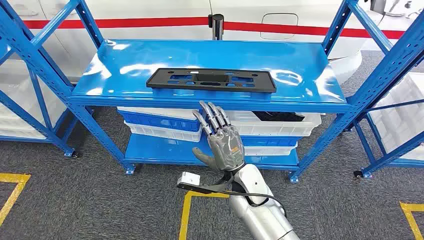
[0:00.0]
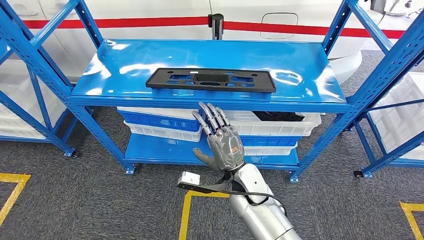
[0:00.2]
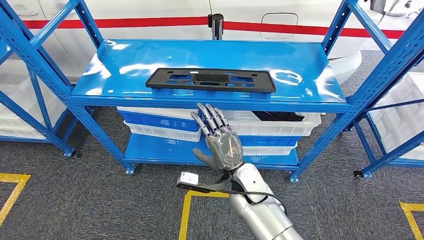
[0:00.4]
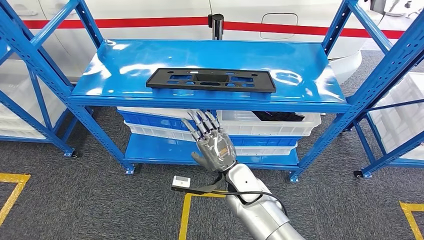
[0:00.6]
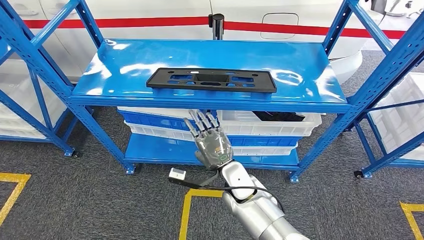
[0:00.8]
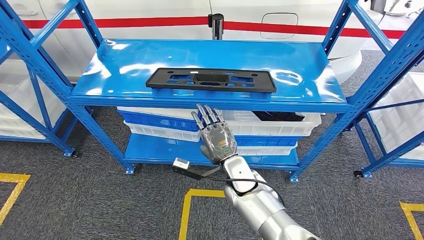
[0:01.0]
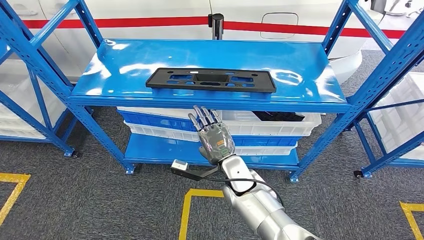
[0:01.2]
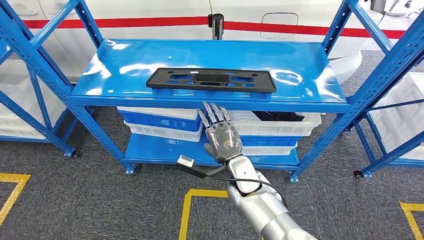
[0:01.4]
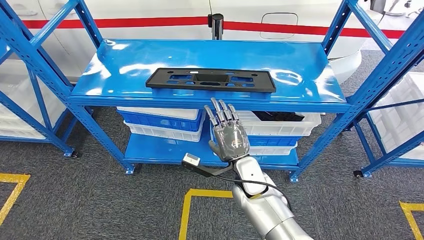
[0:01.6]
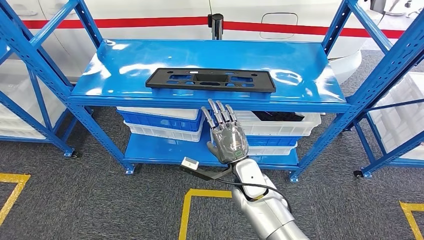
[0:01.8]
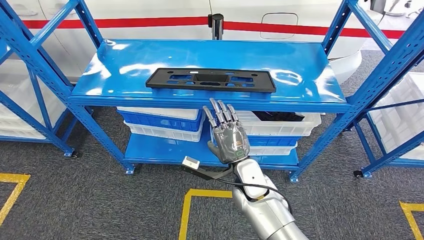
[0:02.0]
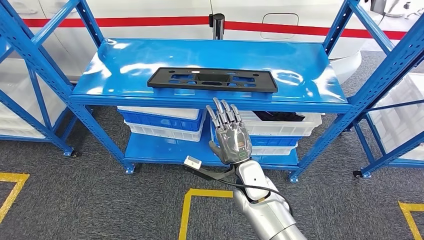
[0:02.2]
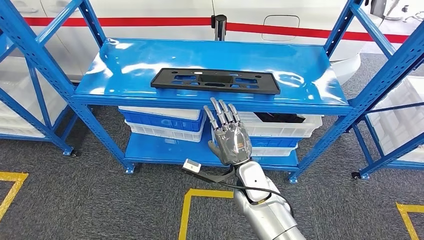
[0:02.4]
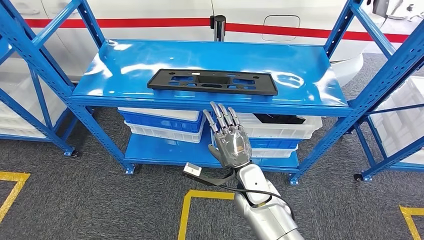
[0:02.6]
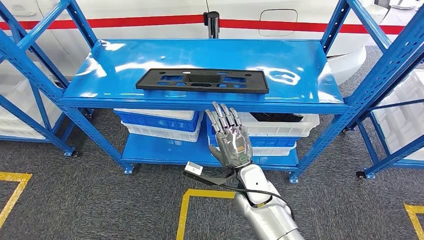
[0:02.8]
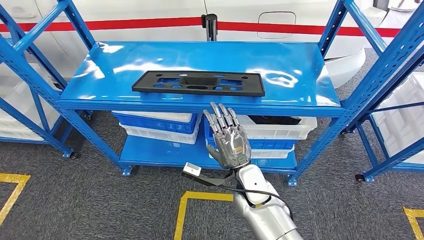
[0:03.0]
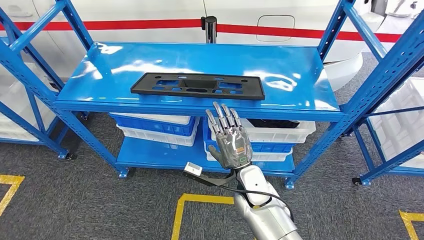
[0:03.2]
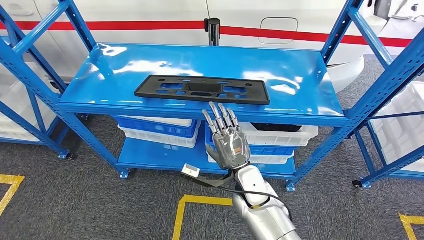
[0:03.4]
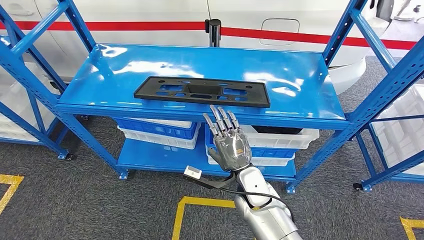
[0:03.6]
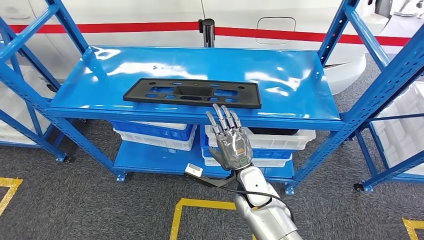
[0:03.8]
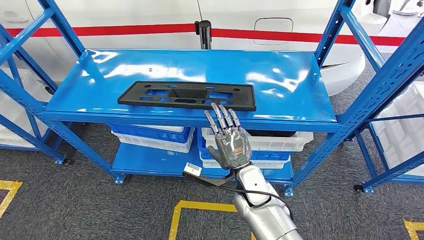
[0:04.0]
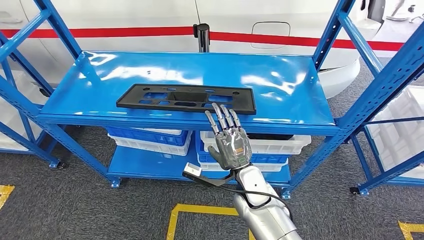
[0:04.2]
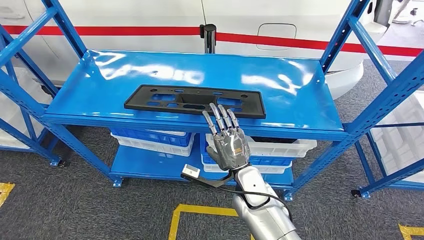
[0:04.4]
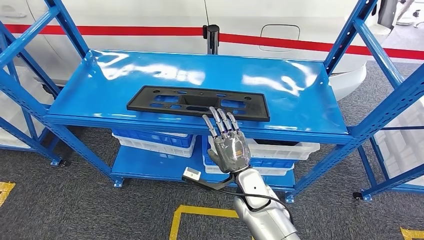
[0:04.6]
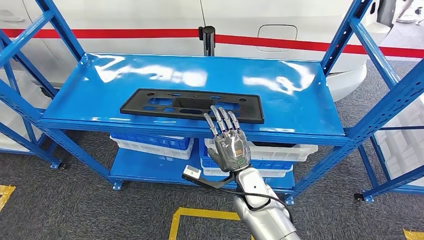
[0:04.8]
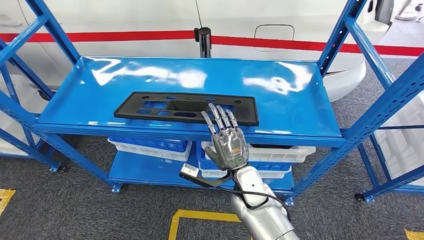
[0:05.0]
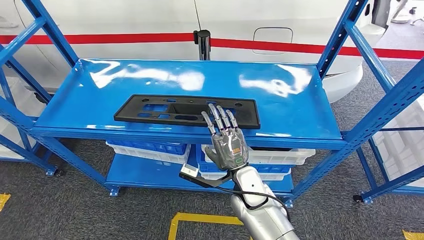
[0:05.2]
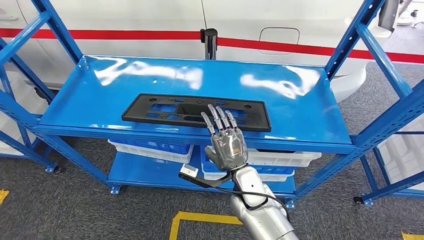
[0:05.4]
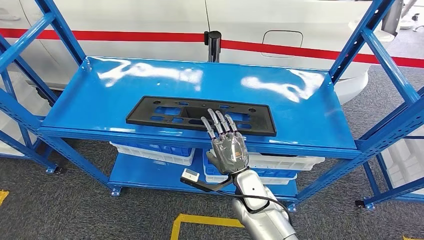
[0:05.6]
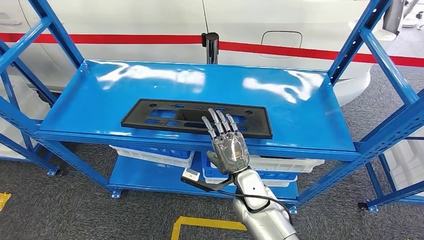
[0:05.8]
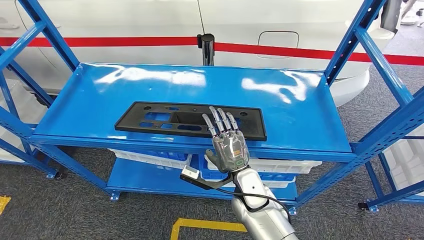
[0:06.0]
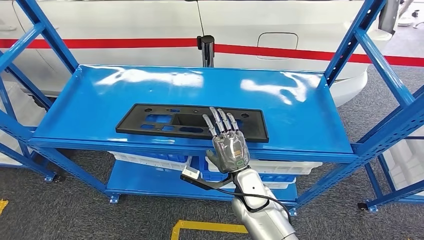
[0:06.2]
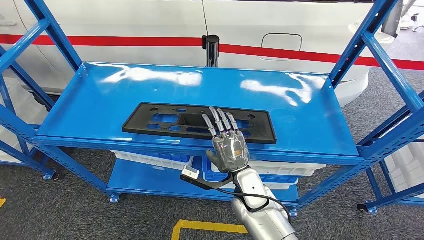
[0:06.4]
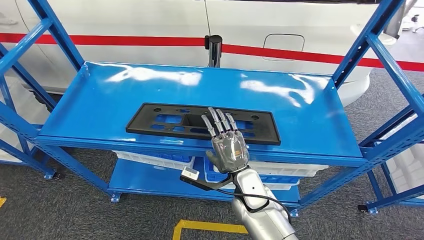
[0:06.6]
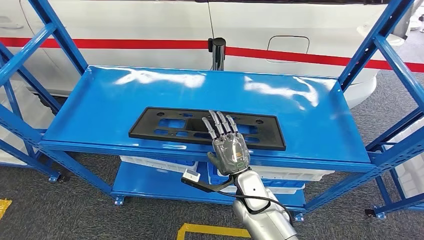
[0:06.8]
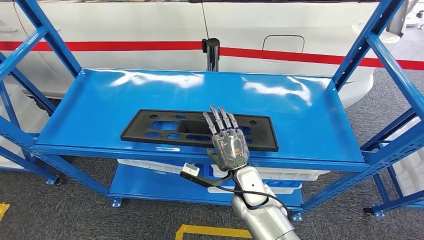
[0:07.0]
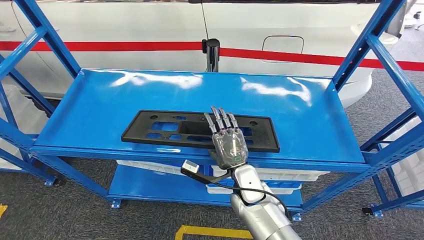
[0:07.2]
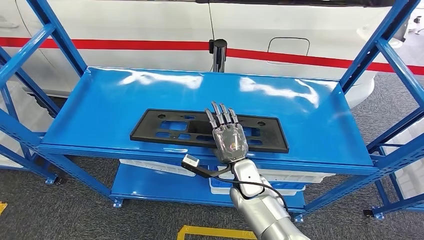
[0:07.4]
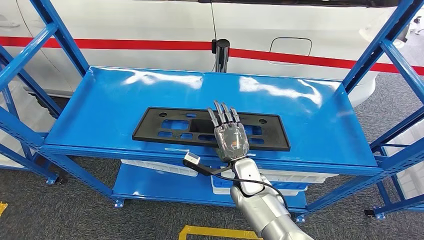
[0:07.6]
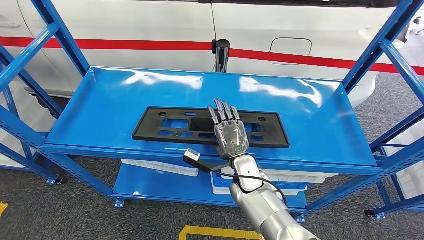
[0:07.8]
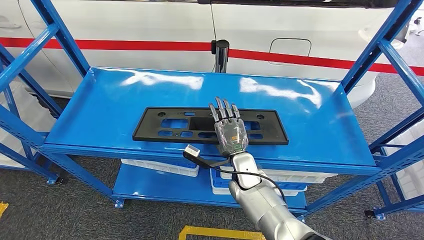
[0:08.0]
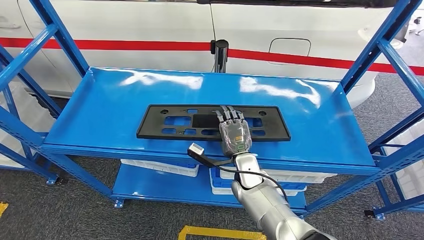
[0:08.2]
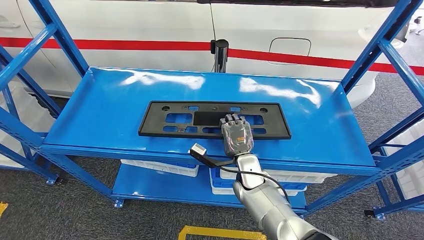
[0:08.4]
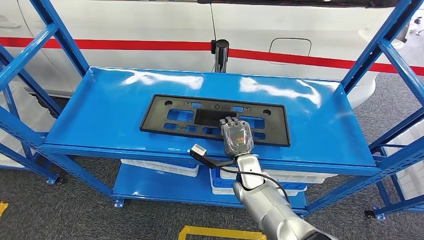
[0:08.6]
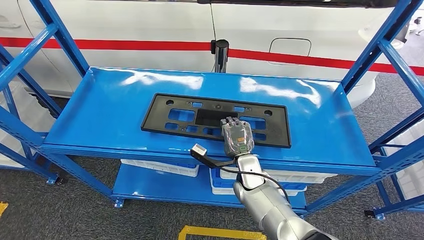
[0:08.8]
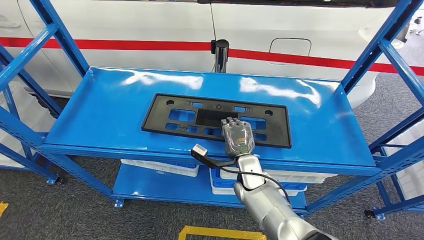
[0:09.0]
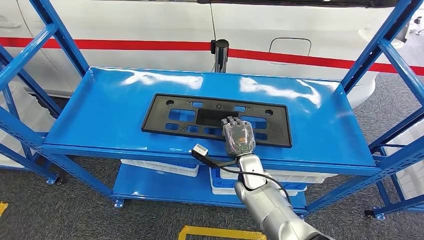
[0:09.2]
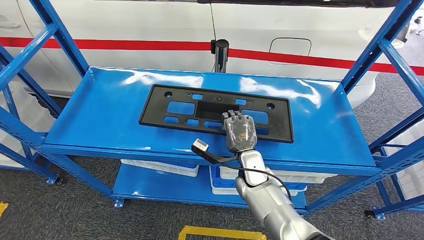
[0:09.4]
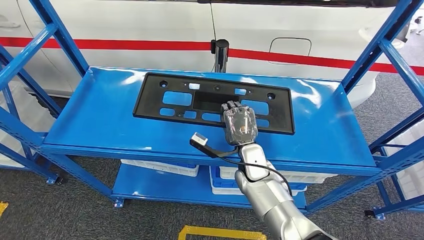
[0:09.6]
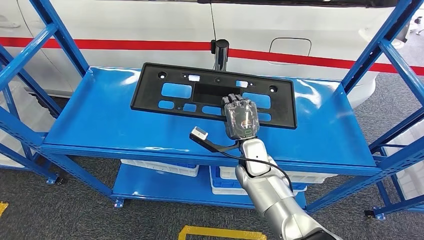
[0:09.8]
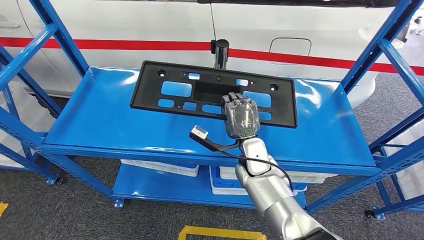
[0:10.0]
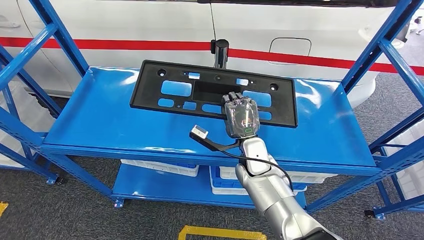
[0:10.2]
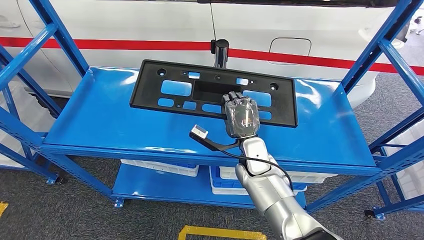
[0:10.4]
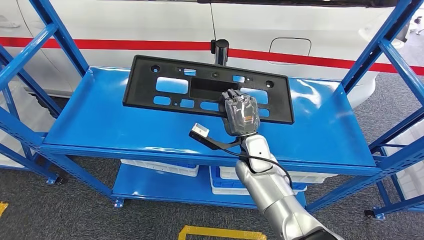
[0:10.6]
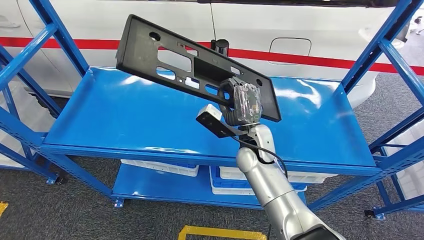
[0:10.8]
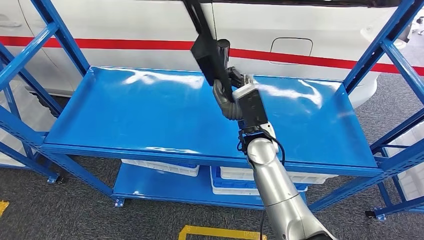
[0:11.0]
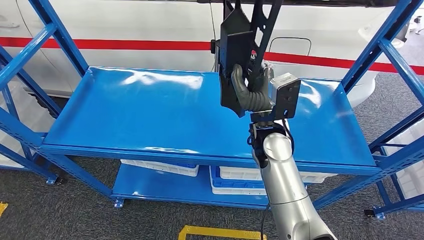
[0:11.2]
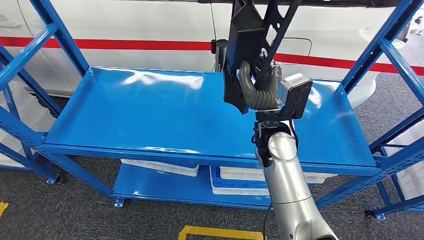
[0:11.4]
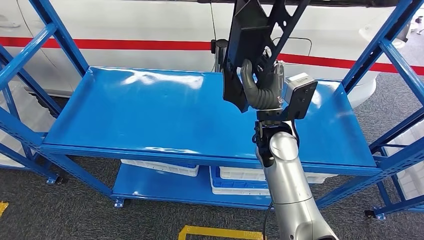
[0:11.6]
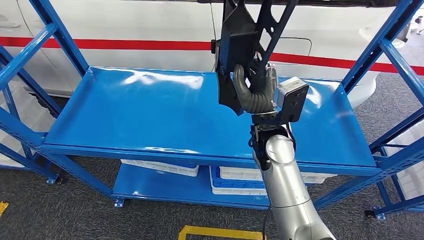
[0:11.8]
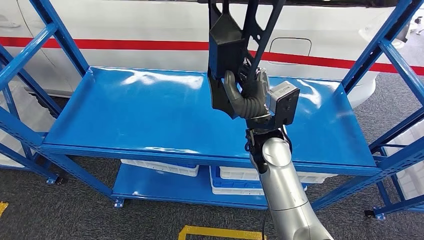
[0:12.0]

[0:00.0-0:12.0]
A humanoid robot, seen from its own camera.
0:07.6 to 0:09.0: The hands stay close to where they were, moving slightly.
0:09.0 to 0:10.4: The right hand travels upward by about 5 cm.
0:10.4 to 0:12.0: The right hand is displaced upward by some 10 cm.

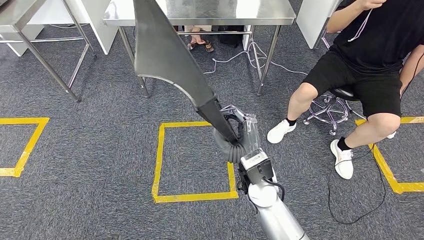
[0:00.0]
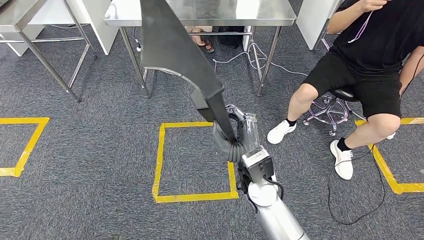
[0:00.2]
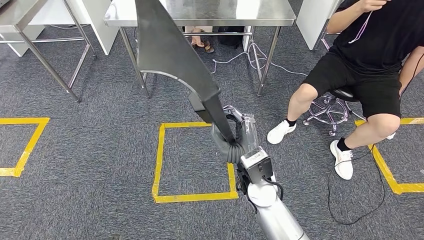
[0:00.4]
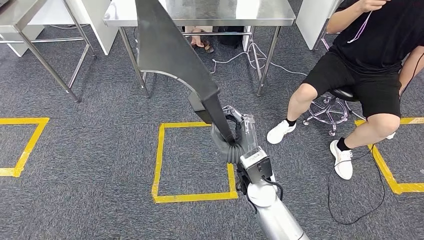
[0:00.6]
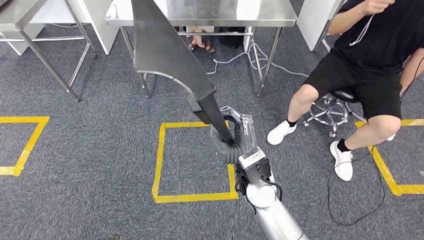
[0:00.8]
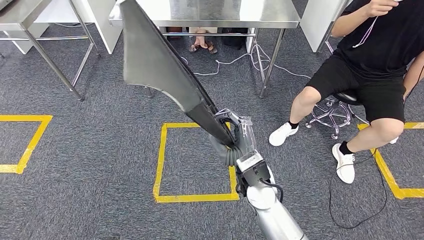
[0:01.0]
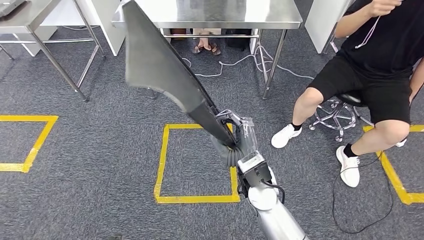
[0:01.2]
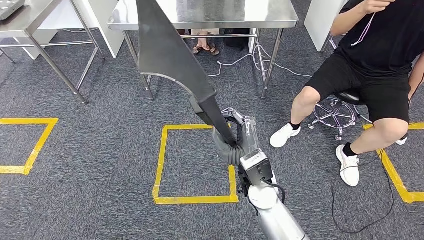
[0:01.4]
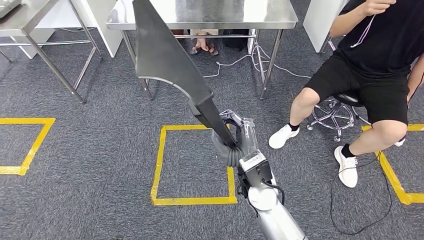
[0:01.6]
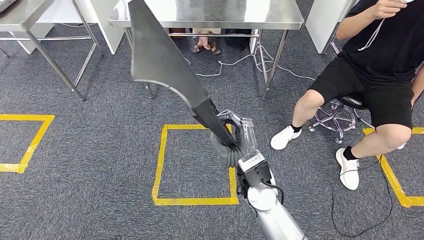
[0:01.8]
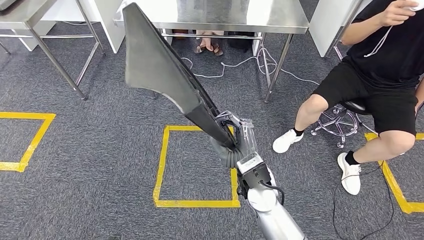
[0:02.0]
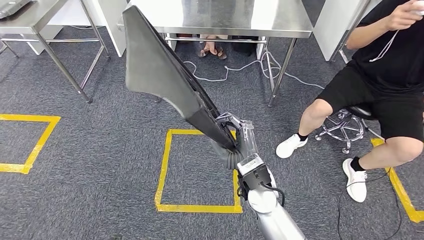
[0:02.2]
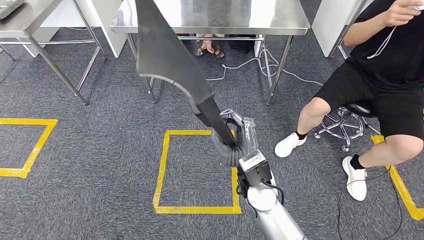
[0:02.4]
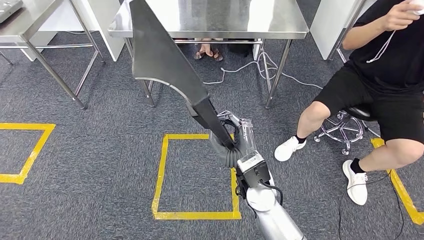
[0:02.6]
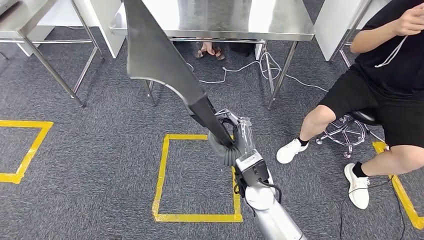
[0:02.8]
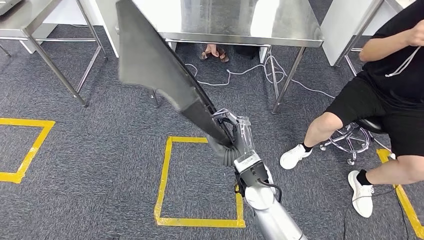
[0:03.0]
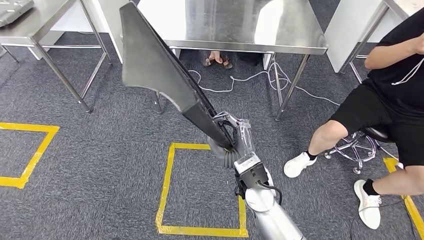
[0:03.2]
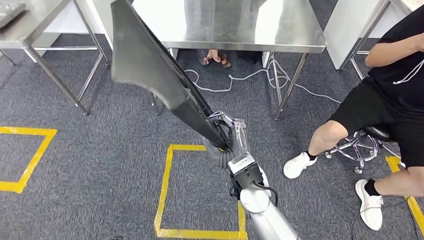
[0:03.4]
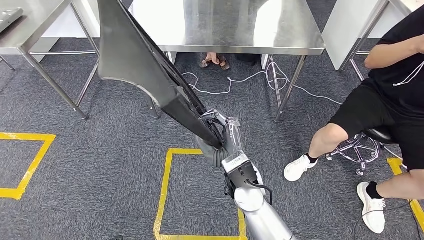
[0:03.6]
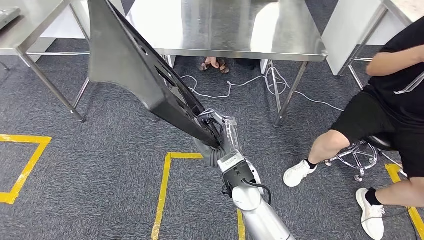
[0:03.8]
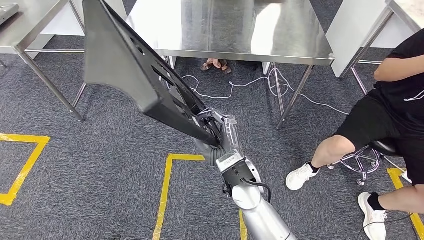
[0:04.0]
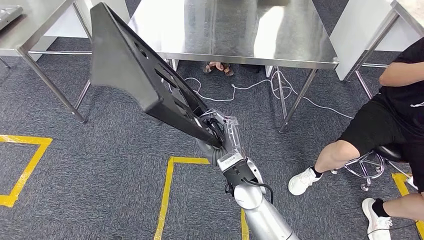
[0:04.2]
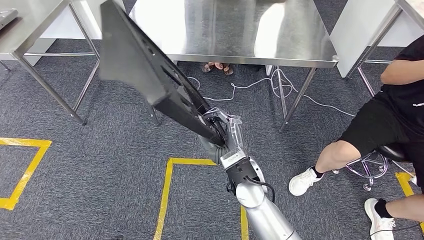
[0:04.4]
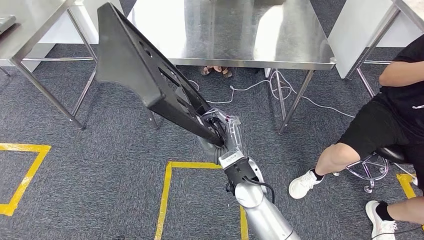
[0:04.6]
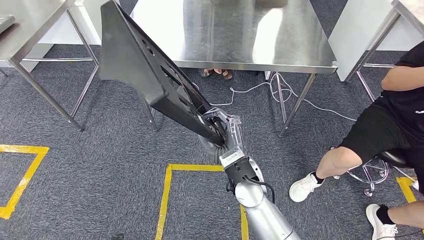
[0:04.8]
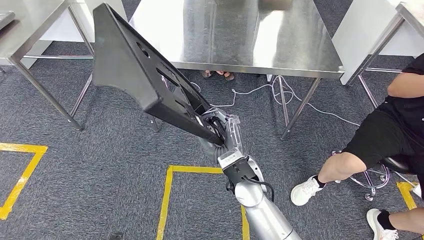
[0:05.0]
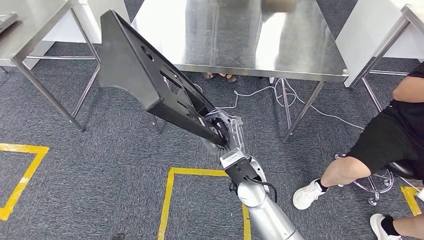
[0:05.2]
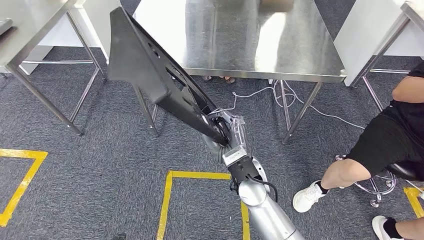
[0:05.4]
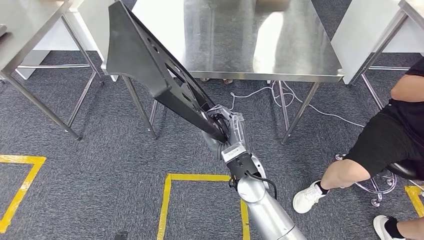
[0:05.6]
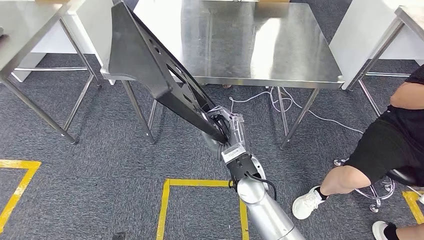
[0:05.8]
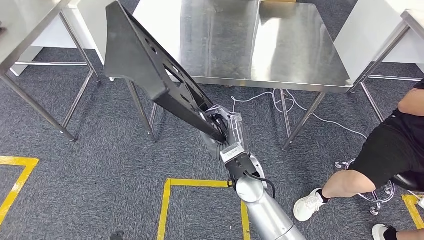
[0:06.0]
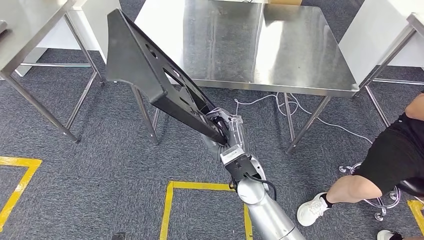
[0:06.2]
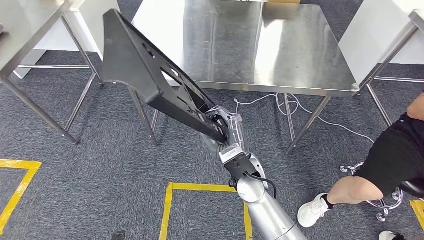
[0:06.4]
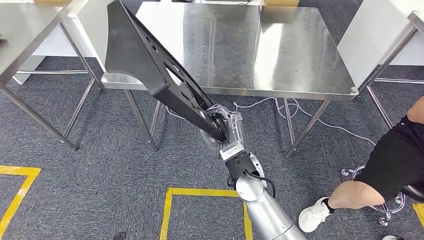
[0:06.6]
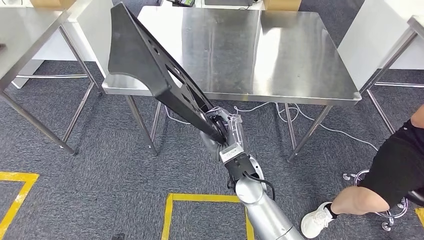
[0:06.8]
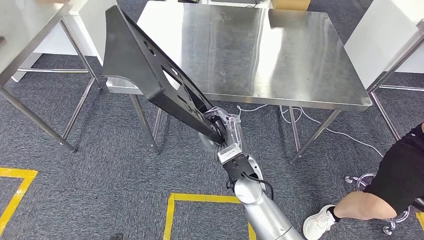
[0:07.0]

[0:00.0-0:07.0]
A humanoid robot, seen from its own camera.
Step, 0:00.0 to 0:05.0: Move the large material to the front of the workbench.
